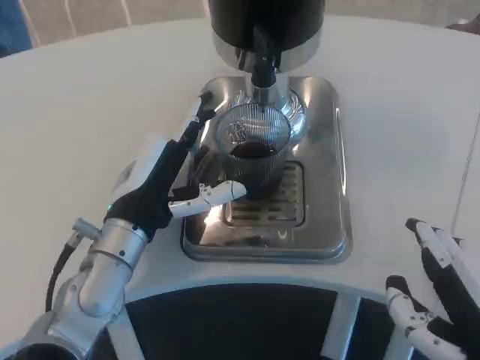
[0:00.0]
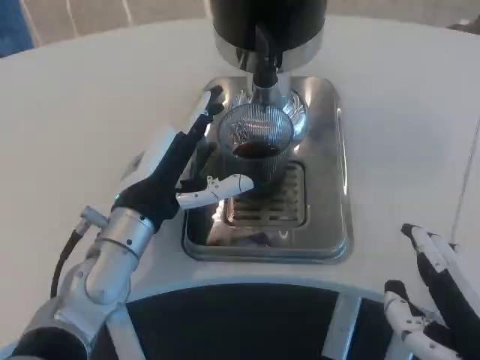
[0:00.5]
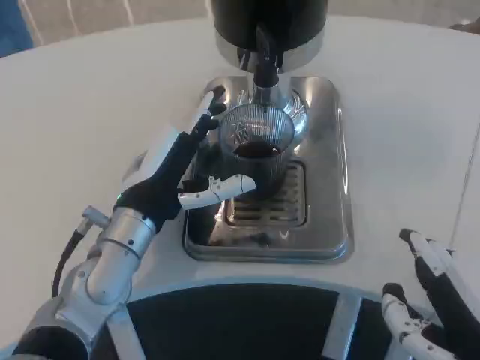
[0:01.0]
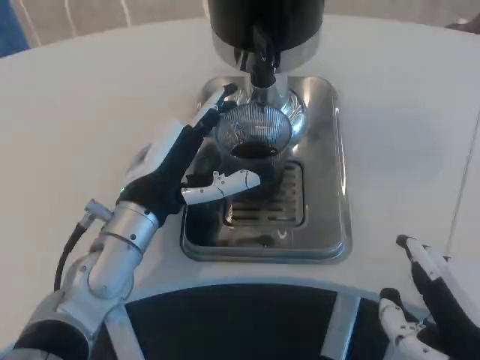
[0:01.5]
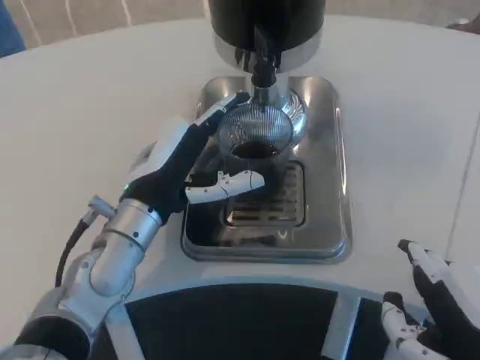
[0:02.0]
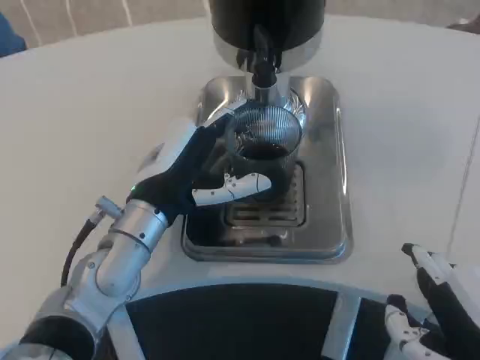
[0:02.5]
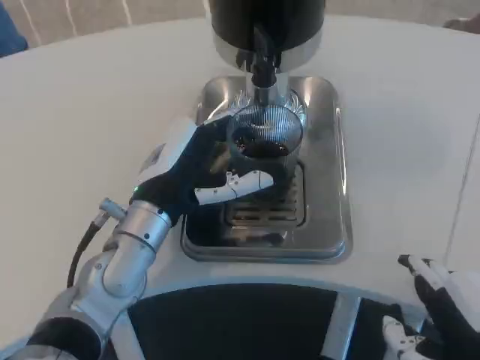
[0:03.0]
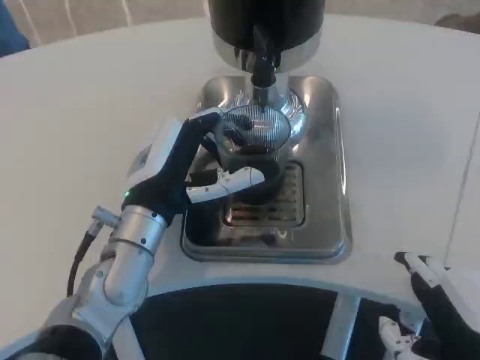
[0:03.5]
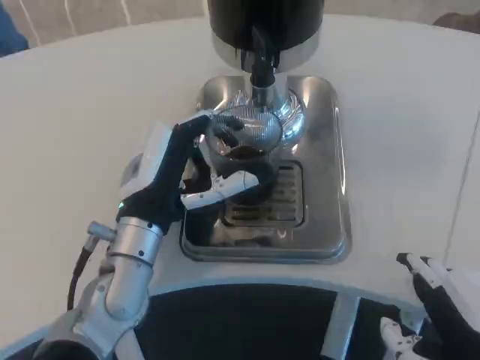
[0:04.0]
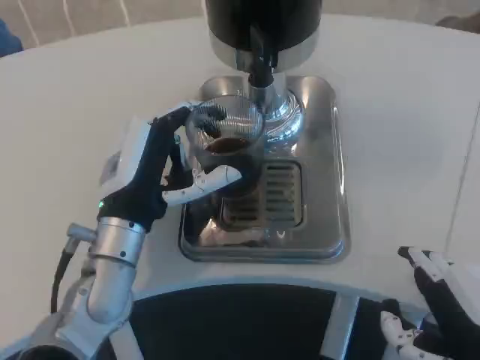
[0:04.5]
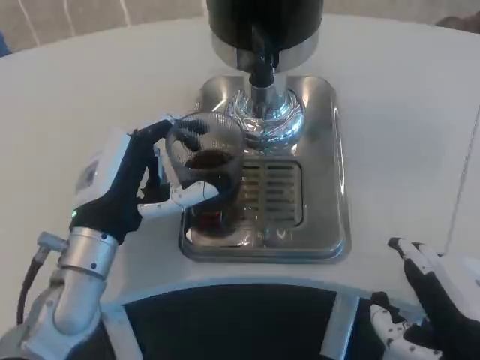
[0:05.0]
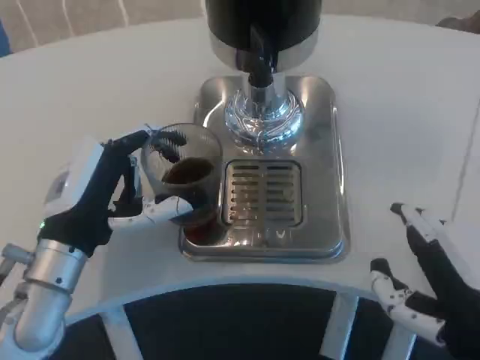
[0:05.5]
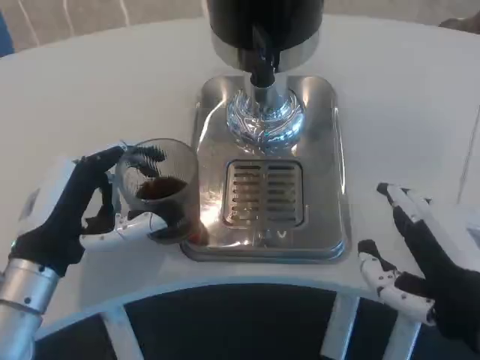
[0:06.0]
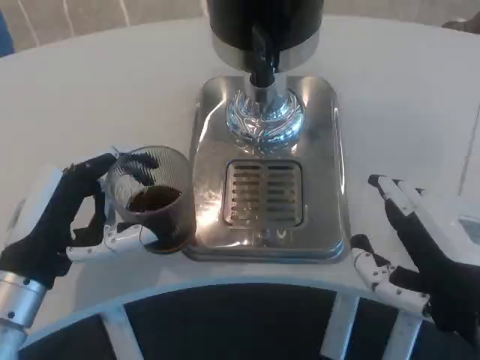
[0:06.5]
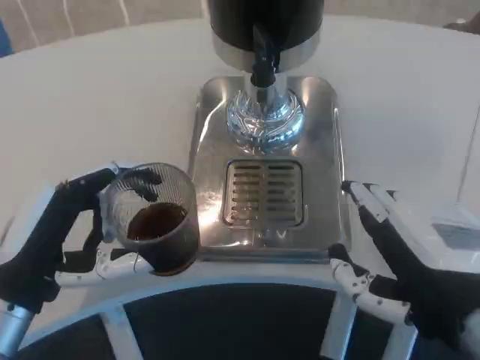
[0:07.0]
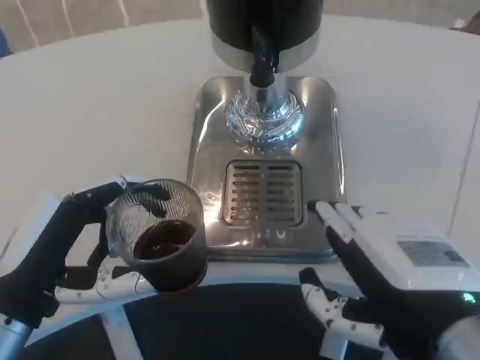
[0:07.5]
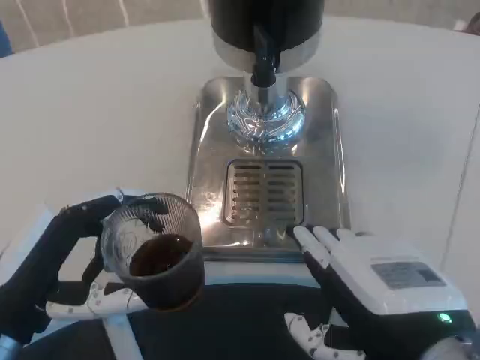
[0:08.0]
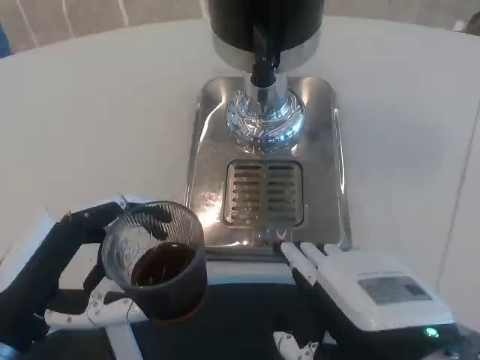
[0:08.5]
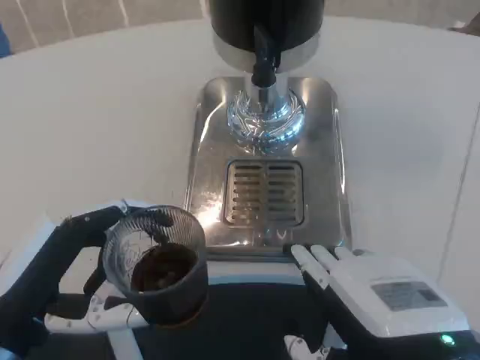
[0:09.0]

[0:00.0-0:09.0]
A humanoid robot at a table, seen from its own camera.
Task of the whole recording: Grasp the cup under the faucet to collect the drink, then remove the cup.
0:00.0 to 0:04.5: The hands move only a little.
0:04.5 to 0:07.0: The left hand heads to the left and backward, covering about 15 cm.

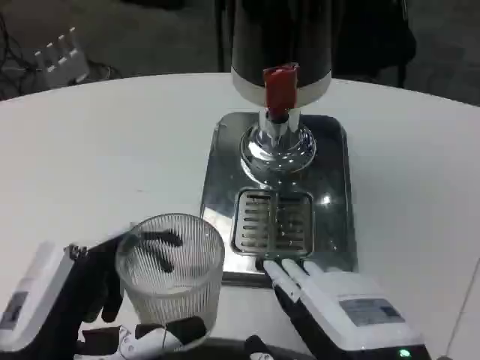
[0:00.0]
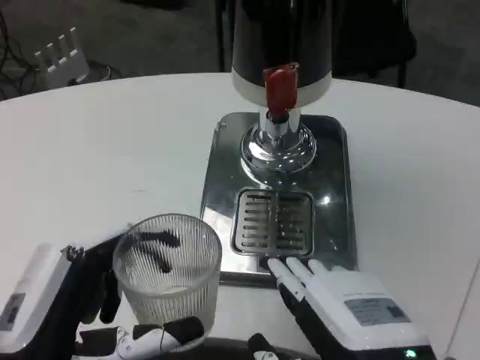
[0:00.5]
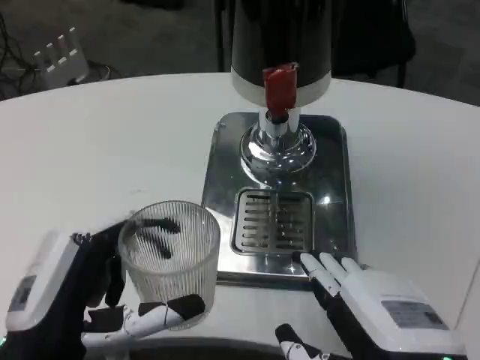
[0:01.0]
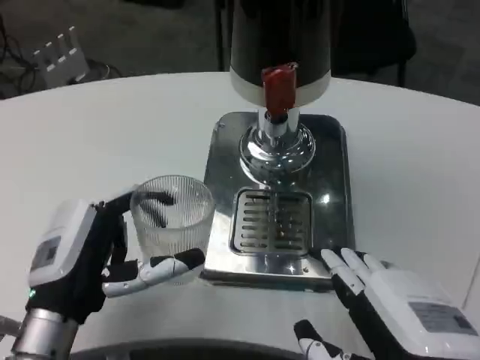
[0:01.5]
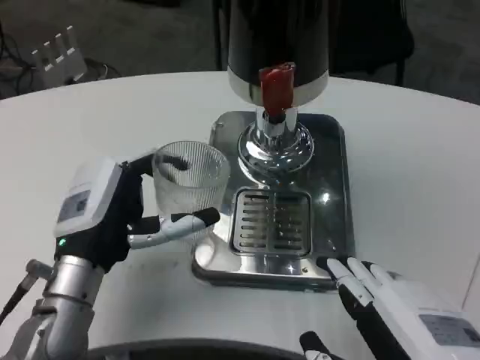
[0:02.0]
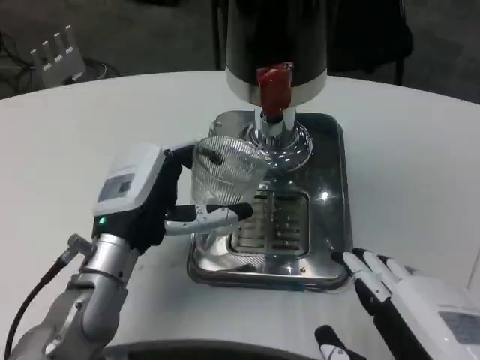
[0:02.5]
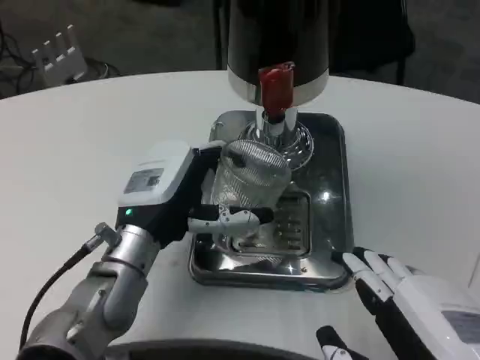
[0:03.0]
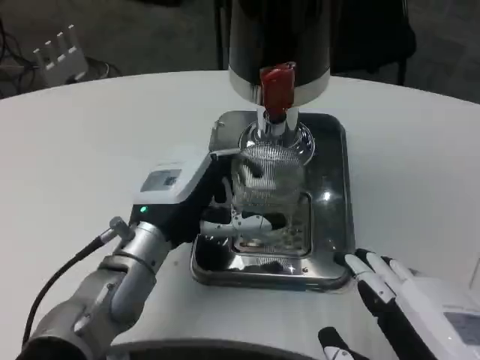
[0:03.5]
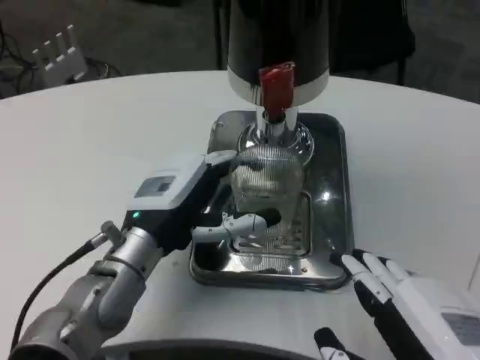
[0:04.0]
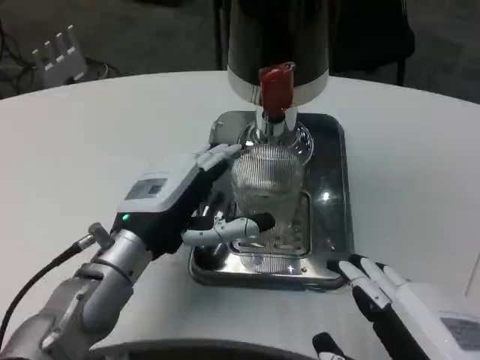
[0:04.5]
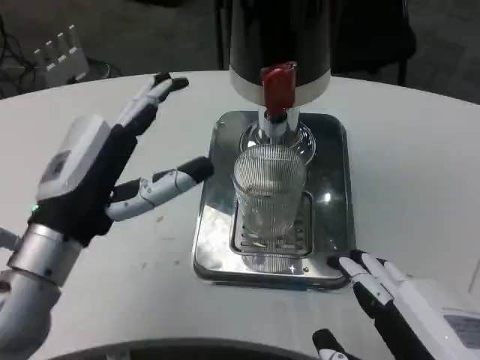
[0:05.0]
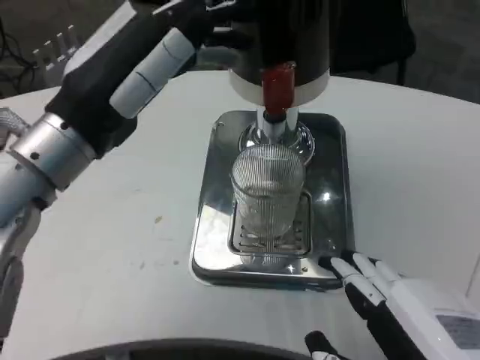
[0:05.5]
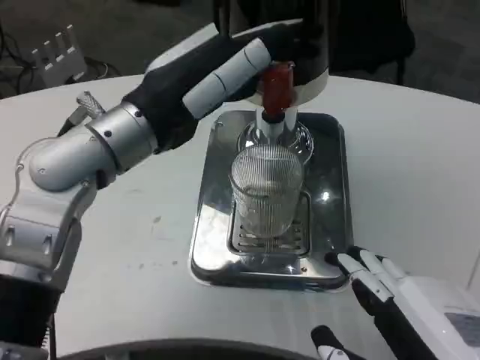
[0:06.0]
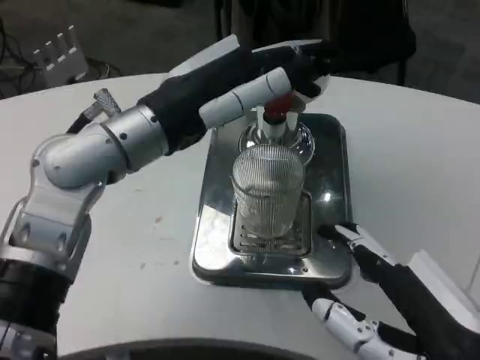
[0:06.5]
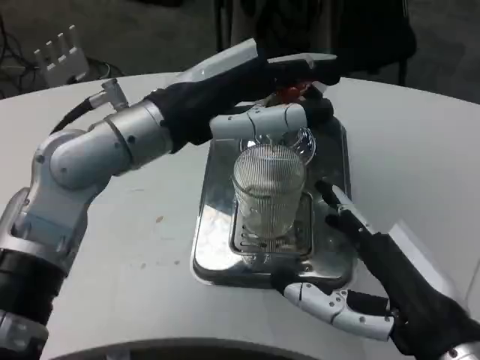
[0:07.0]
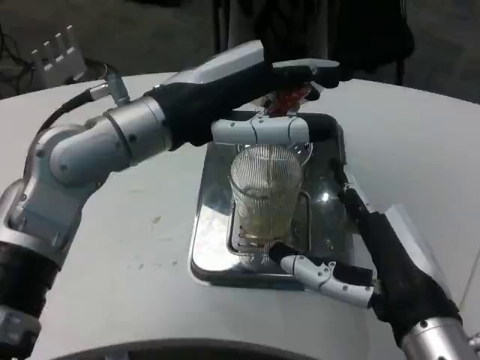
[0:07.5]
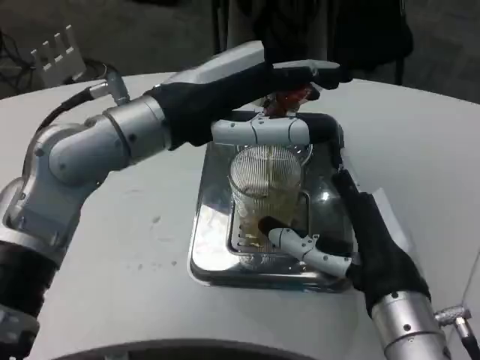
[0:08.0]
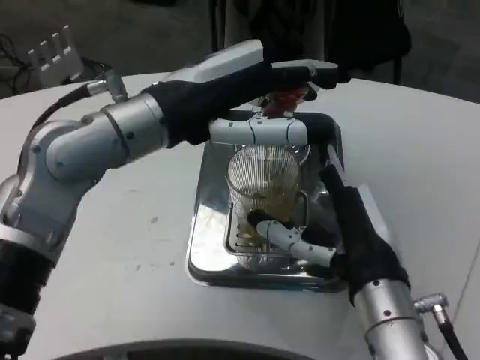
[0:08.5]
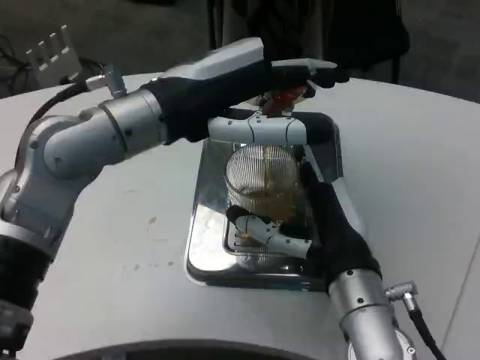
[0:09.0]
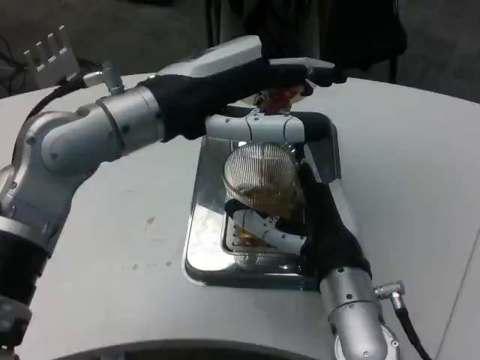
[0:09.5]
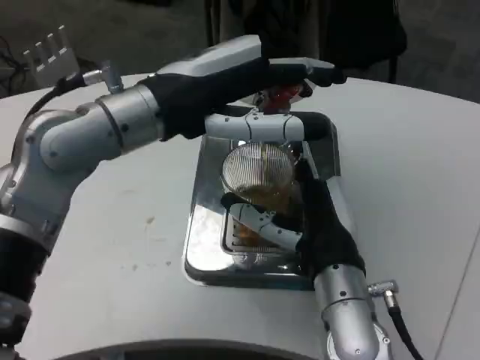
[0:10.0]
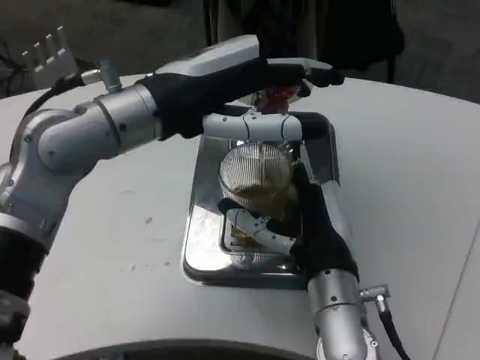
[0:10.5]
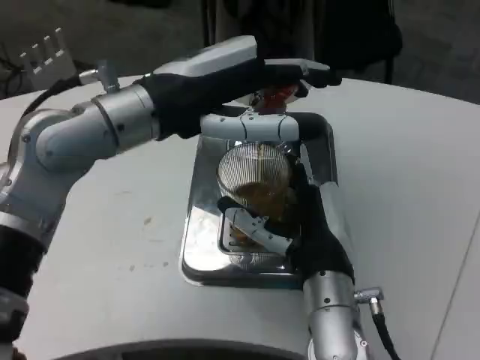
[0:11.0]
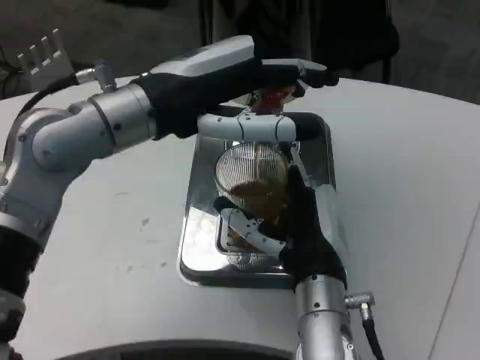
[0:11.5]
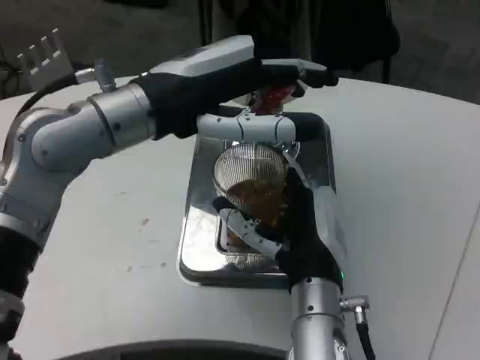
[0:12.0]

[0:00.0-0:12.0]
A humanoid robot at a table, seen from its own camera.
Task of the whole recording: Grasp the cup under the faucet to collect the drink, then remove the cup.
0:00.0 to 0:02.0: The left hand goes roughly 15 cm forward.
0:02.0 to 0:04.0: The left hand ends up approximately 5 cm from where it was.
0:04.0 to 0:06.0: The left hand heads upward, covering about 15 cm.
0:06.0 to 0:08.0: The right hand travels forward by approximately 10 cm.
0:08.0 to 0:10.0: The right hand heads forward, covering some 5 cm.

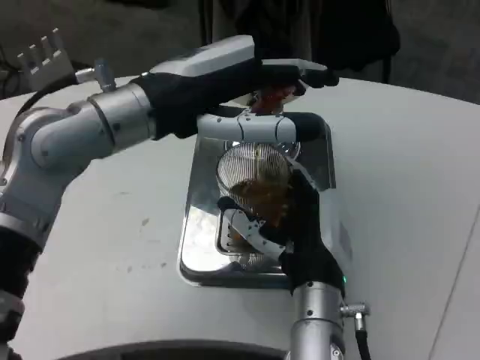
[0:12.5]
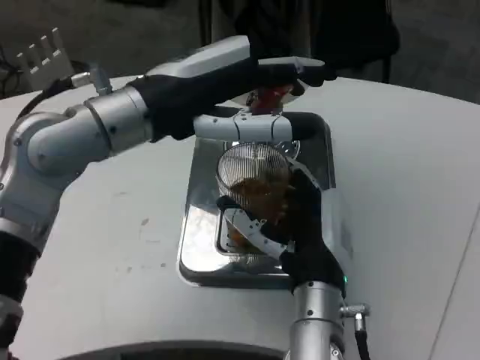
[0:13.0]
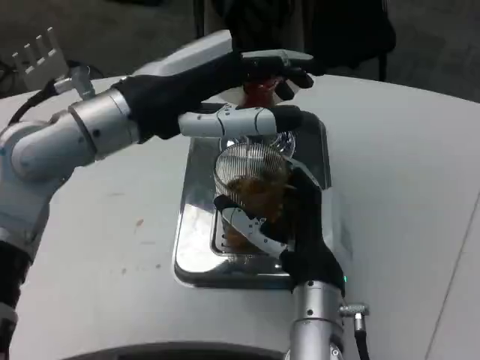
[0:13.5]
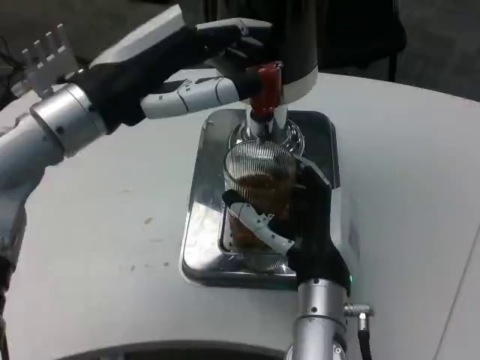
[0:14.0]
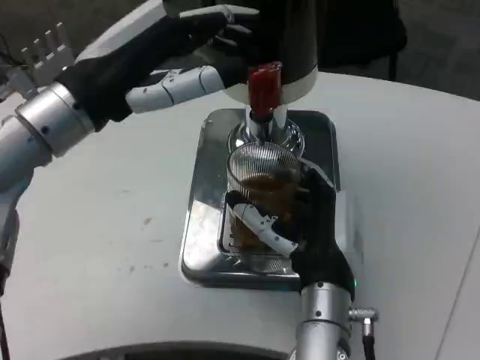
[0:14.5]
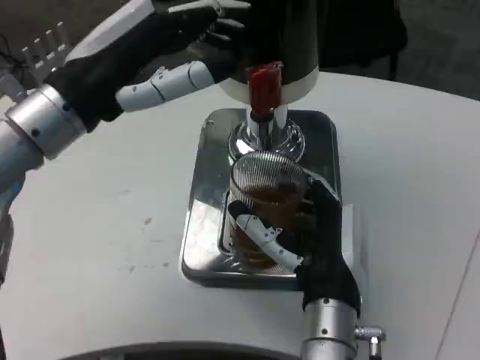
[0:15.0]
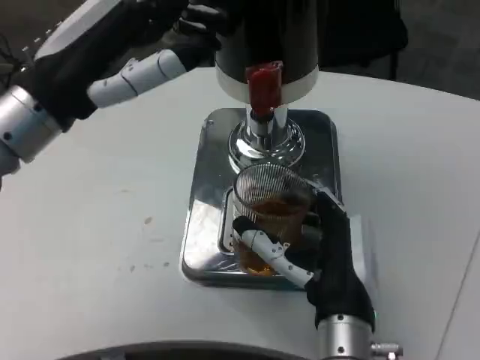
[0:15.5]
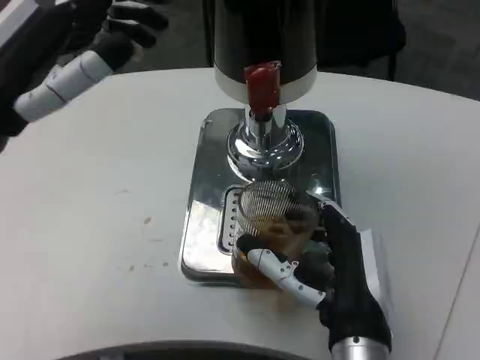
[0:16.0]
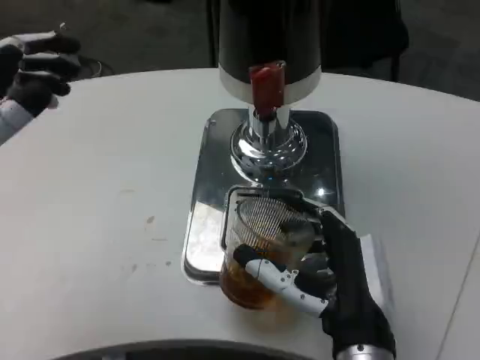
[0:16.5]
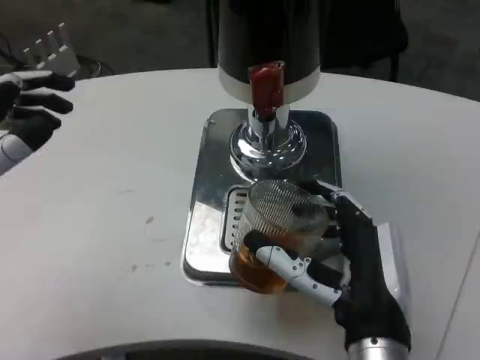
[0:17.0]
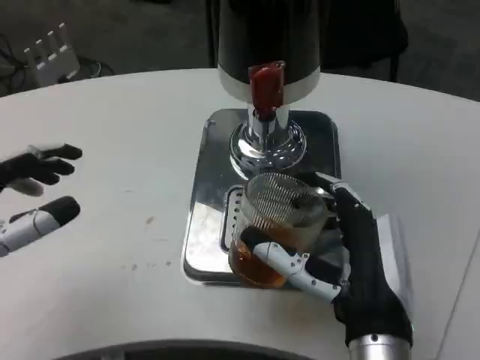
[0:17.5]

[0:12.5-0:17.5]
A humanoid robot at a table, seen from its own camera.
Task of the whole recording: Grasp the cup under the faucet to collect the drink, then remove the cup.
0:12.5 to 0:15.0: The left hand travels to the left by roughly 5 cm.
0:15.0 to 0:17.5: The left hand travels backward, to the left and downward by some 15 cm. Meanwhile the right hand heads backward, covering about 5 cm.
